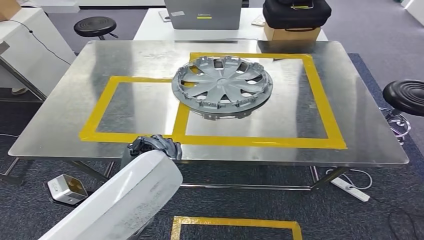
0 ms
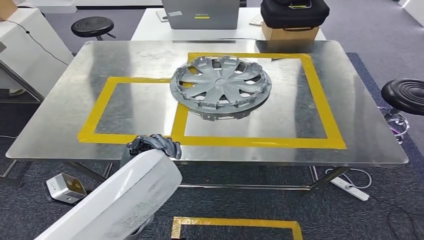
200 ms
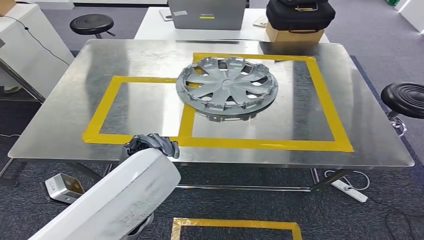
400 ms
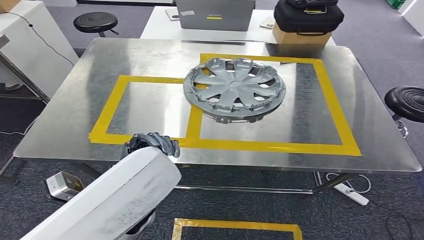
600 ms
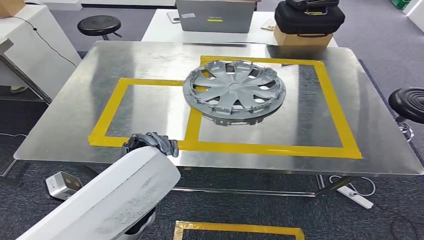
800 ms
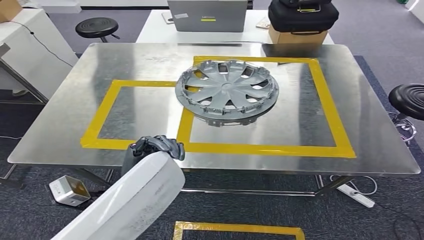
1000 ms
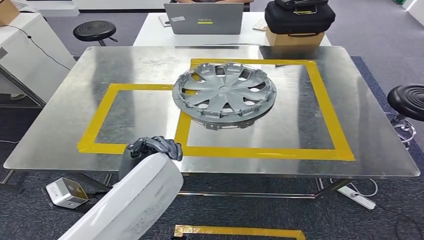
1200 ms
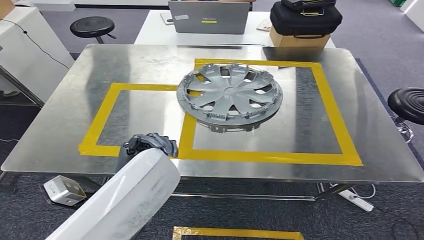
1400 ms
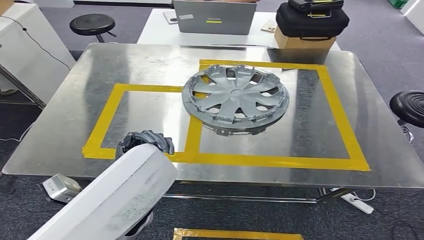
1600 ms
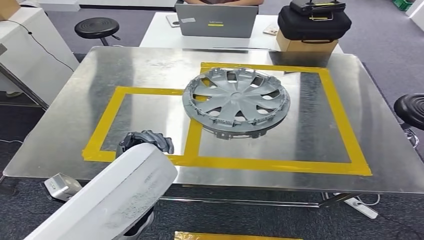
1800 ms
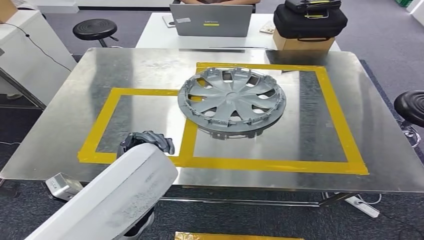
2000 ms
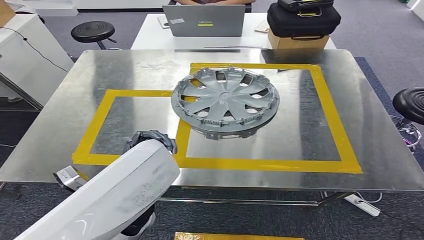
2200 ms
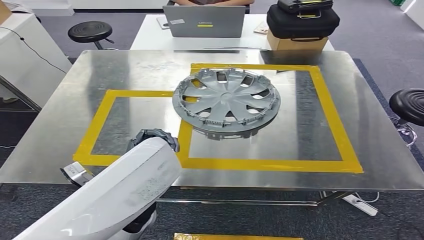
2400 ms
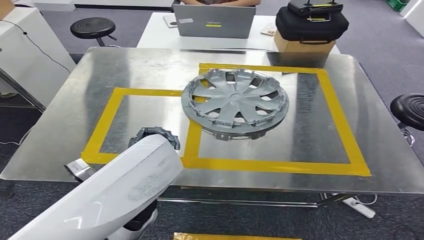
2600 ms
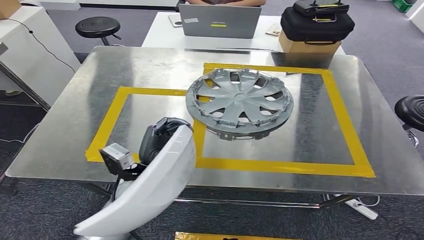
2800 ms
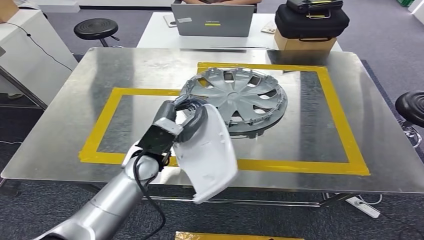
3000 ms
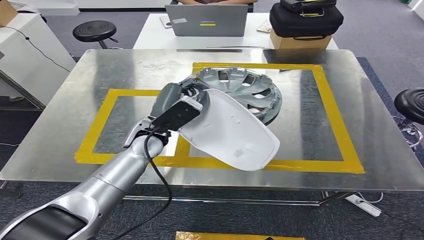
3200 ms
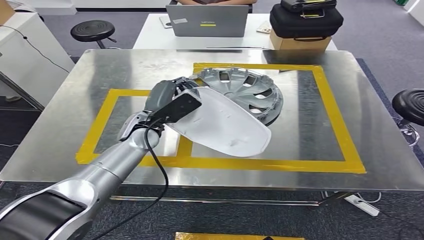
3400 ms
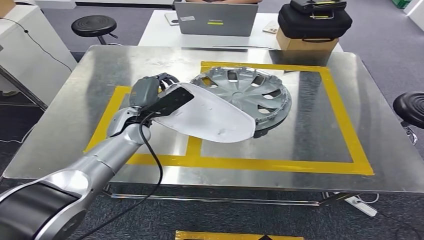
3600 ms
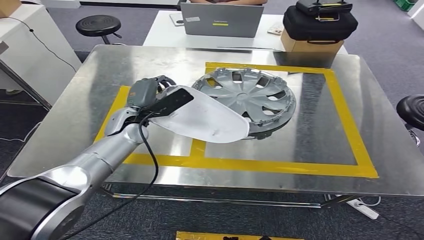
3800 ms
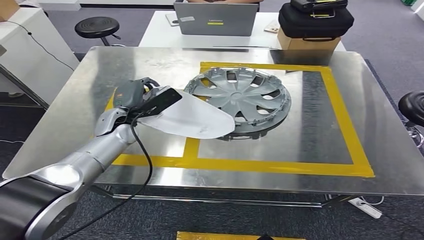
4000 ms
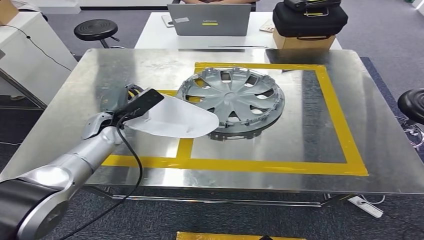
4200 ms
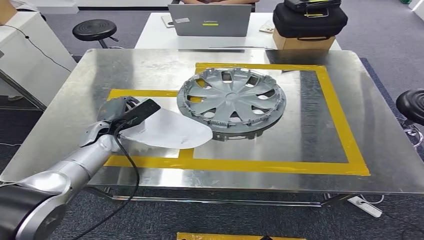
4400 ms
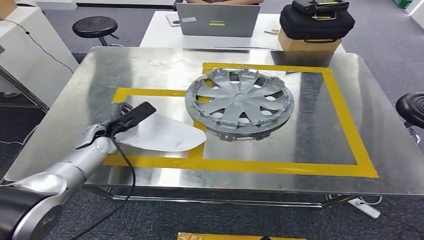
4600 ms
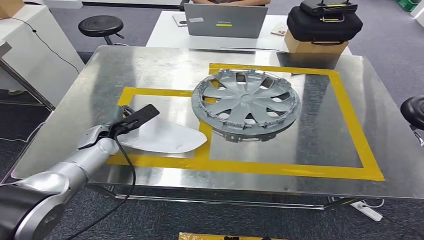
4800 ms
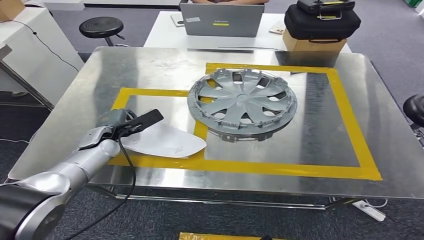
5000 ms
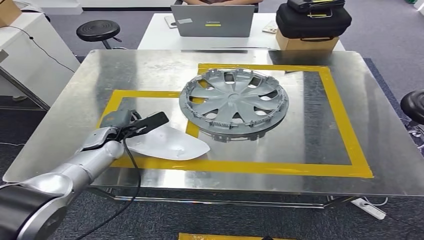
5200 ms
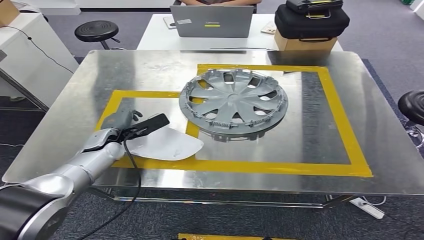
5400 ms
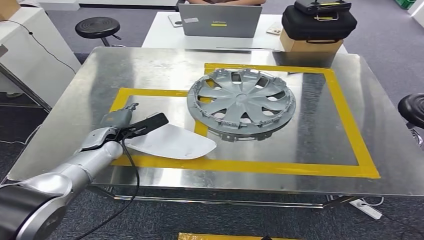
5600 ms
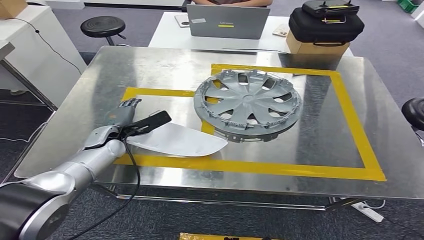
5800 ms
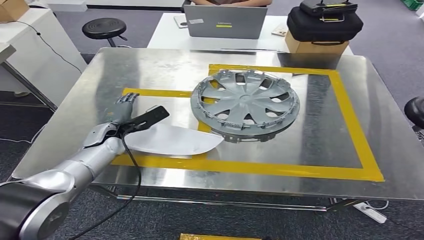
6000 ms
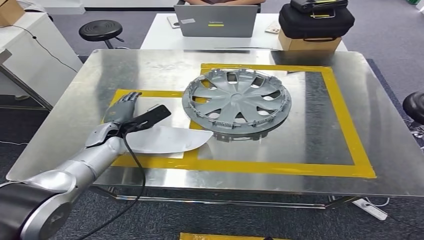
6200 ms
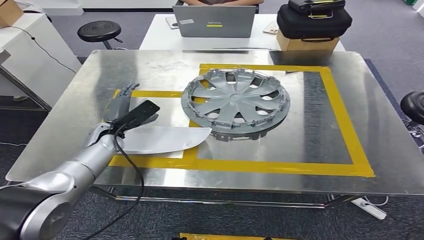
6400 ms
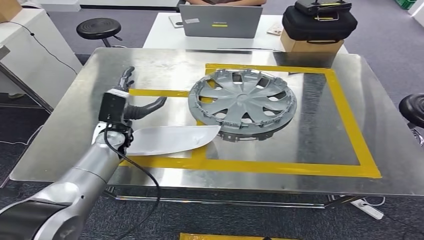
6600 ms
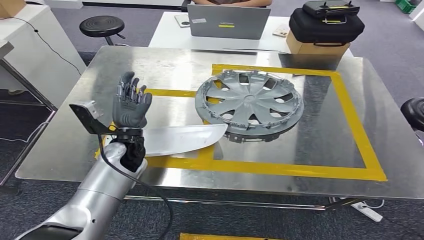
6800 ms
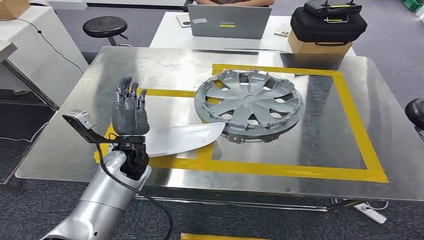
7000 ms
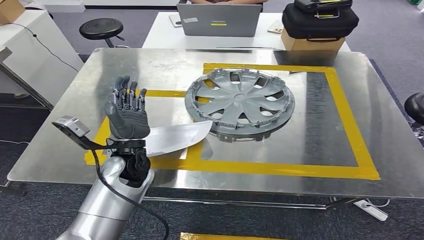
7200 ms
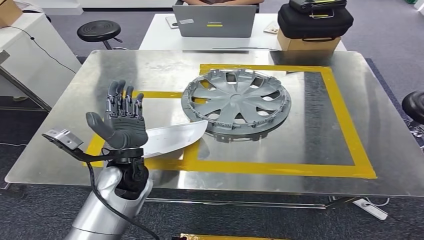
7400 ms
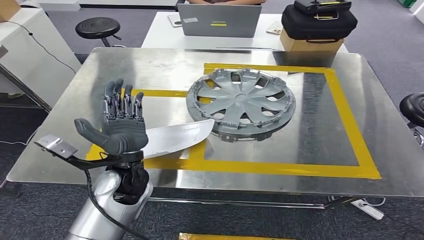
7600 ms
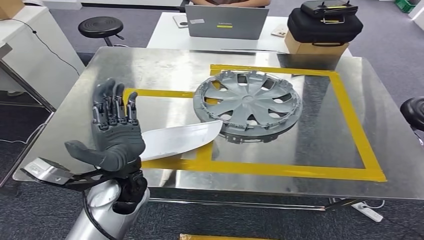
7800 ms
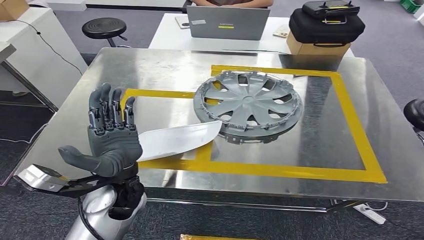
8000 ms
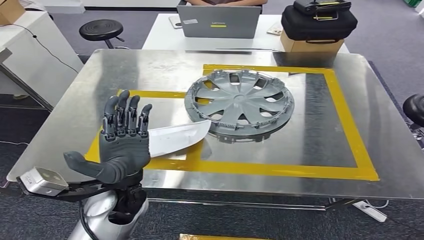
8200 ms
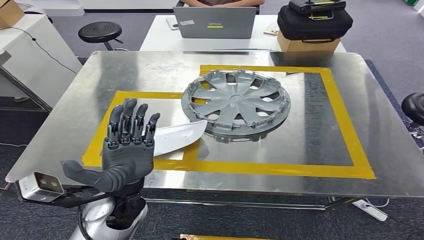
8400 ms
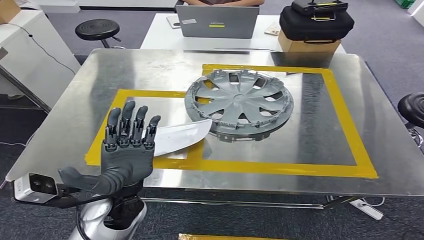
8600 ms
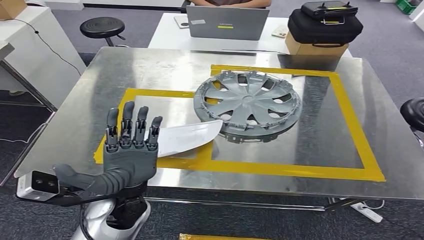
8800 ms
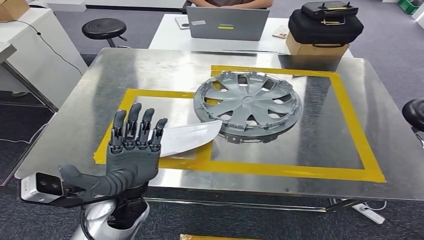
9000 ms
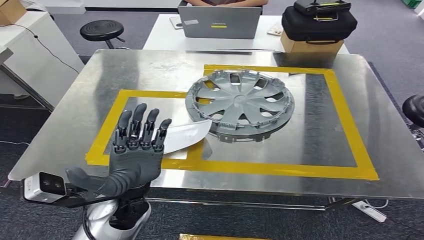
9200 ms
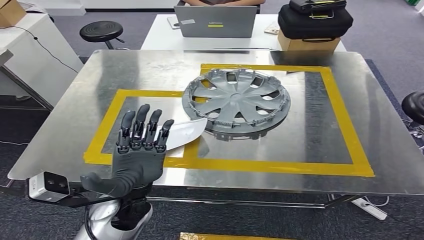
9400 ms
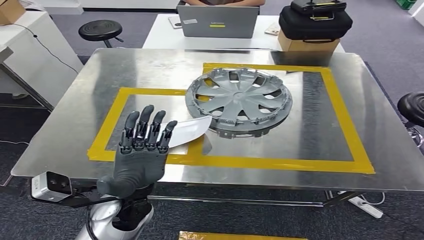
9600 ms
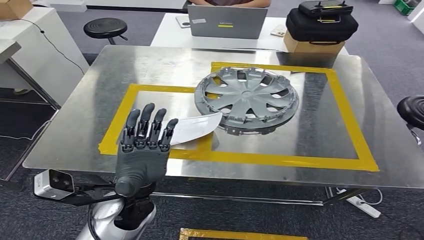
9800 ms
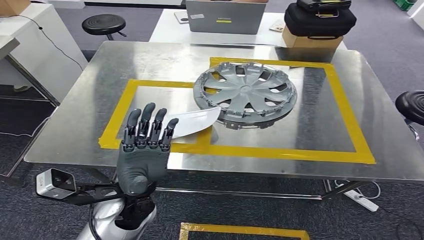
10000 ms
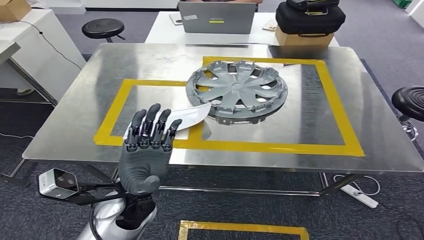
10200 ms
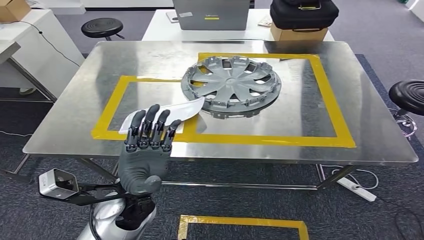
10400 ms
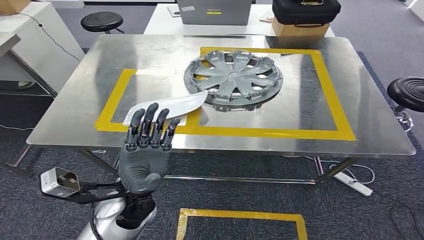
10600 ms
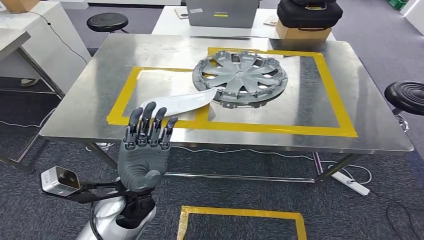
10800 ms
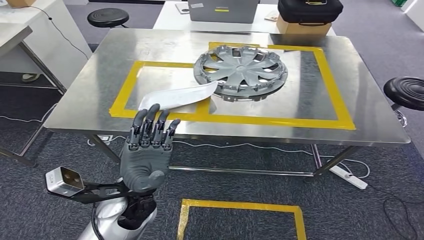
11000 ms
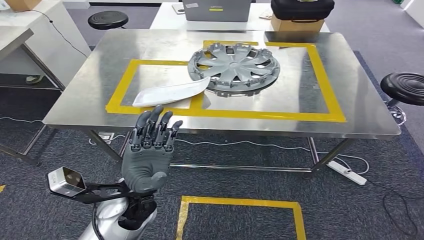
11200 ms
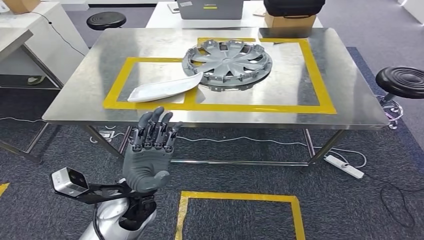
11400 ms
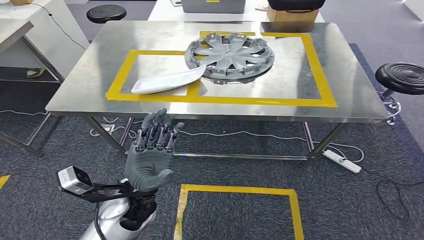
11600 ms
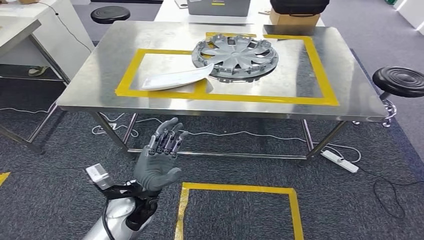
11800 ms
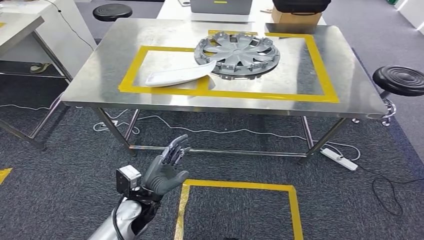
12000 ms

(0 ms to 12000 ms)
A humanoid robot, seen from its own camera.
Step, 0 ms - 5800 ms: Insert the small component into the corresponding slot on the workbench.

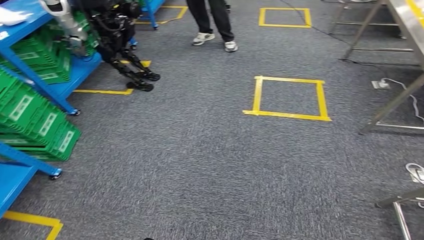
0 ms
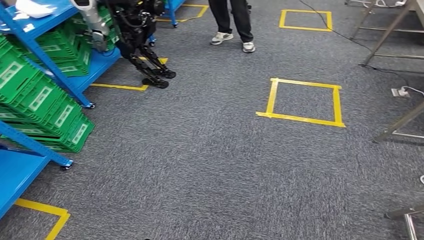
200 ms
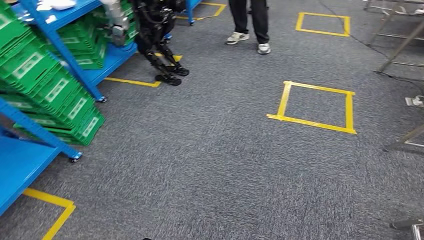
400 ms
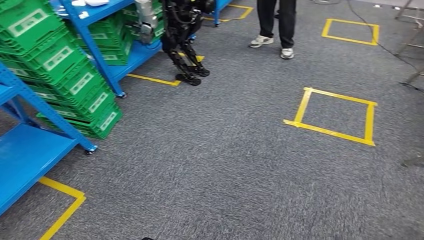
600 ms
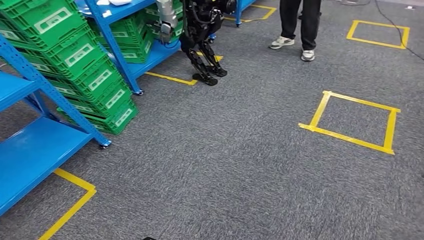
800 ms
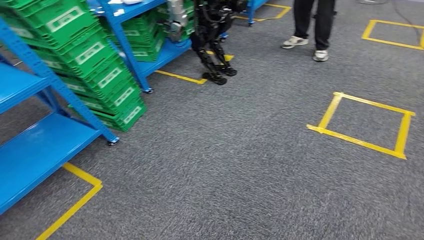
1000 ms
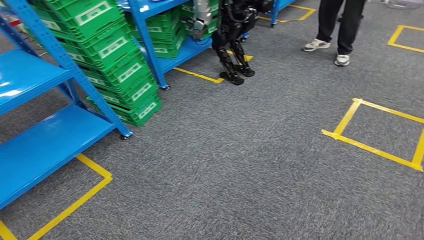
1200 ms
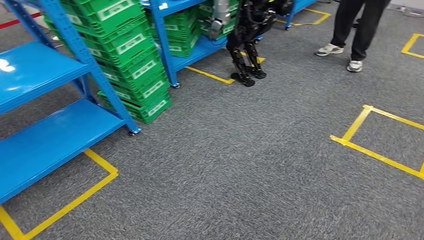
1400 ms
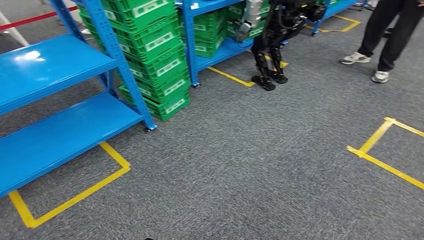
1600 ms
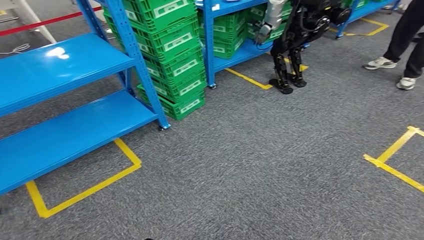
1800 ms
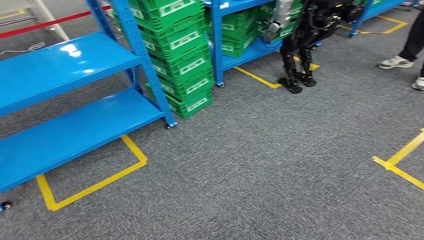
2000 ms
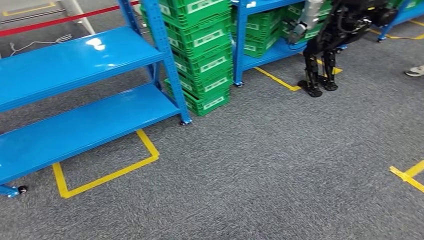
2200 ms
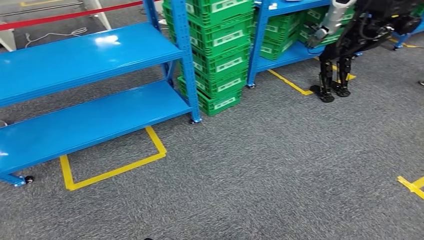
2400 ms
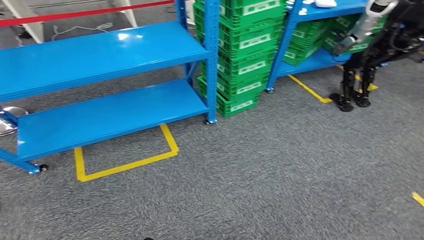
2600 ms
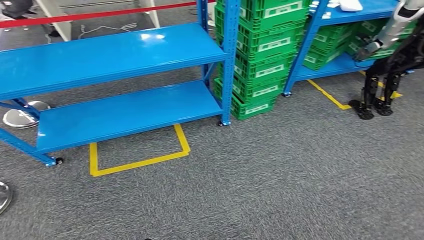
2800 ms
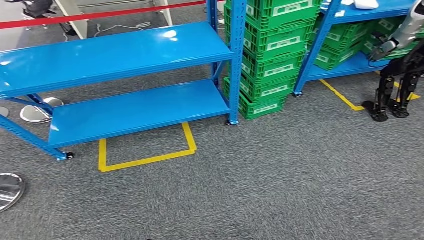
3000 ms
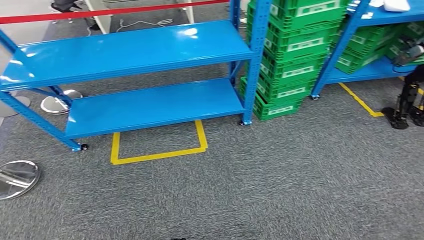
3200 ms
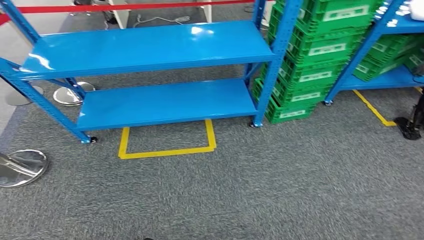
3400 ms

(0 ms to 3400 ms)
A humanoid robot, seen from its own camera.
Step, 0 ms - 3400 ms: Move to the initial position at the workbench.
